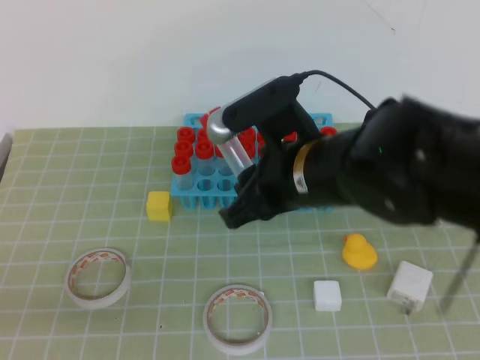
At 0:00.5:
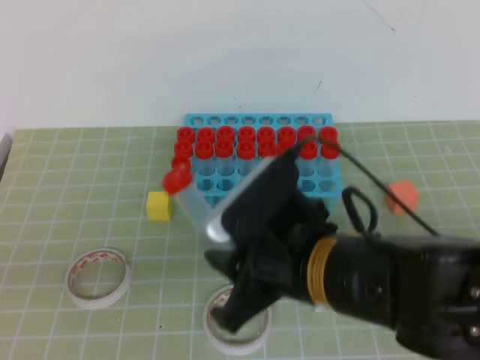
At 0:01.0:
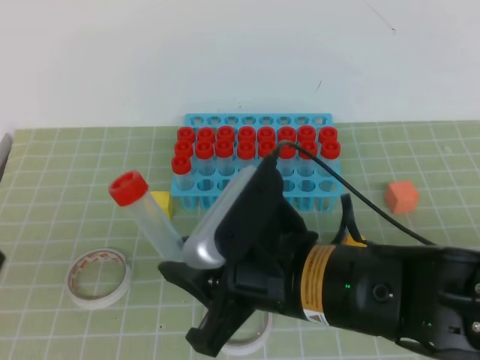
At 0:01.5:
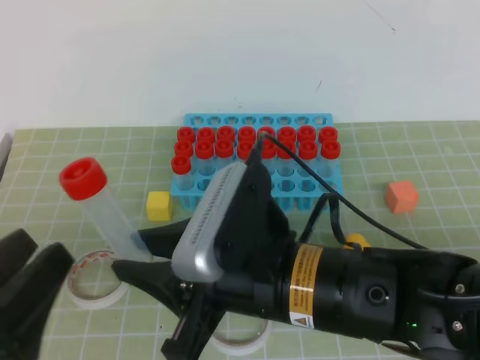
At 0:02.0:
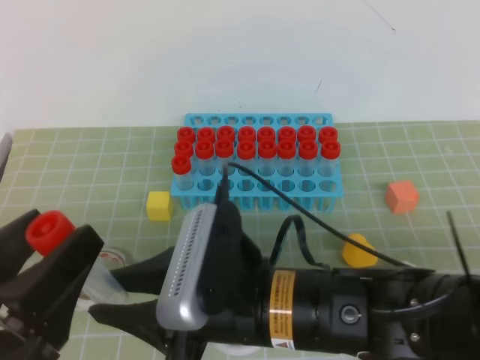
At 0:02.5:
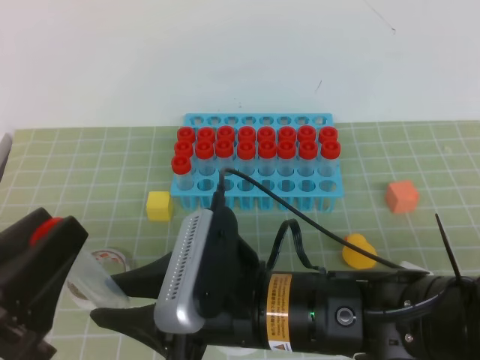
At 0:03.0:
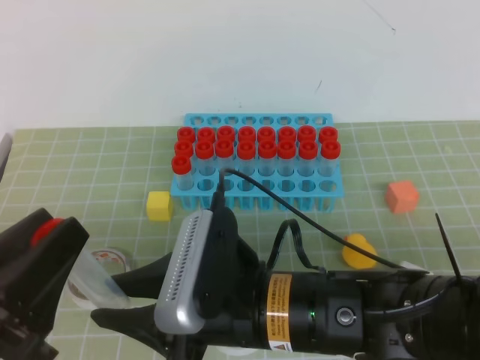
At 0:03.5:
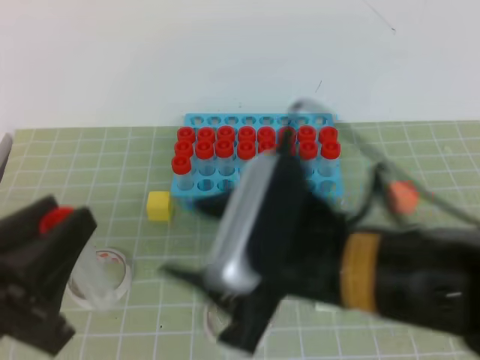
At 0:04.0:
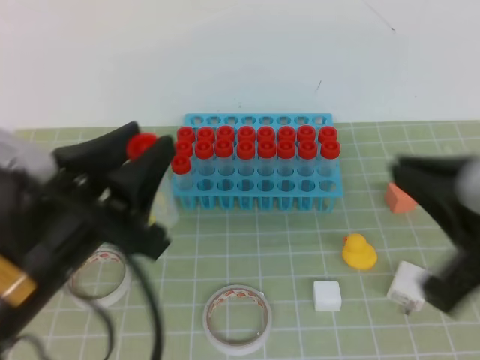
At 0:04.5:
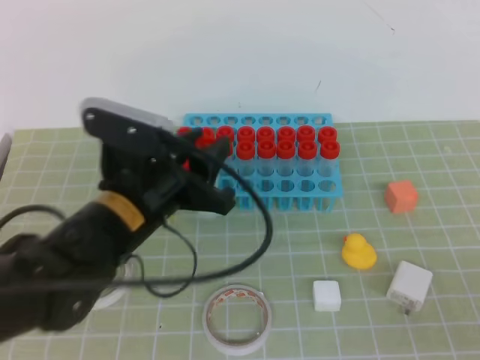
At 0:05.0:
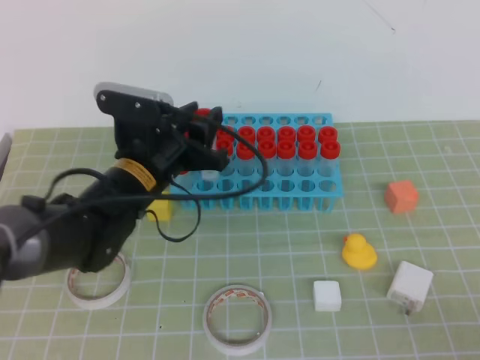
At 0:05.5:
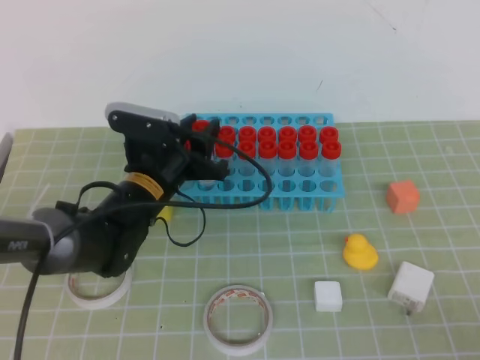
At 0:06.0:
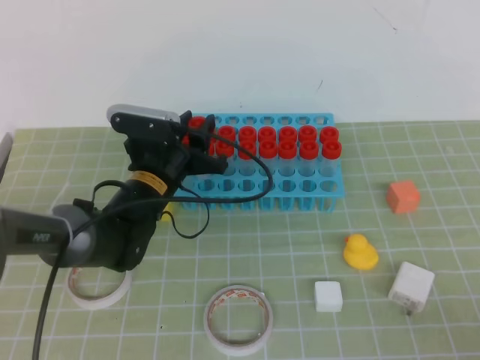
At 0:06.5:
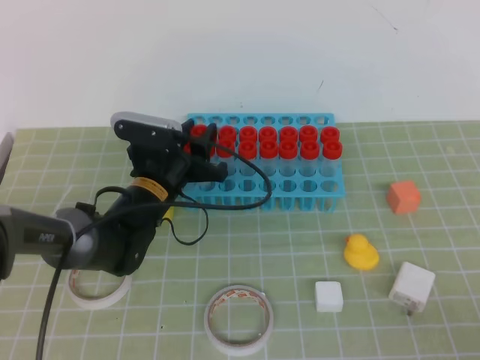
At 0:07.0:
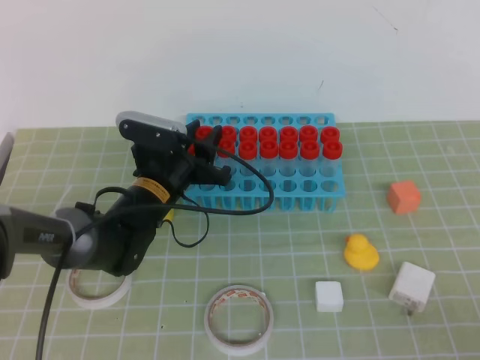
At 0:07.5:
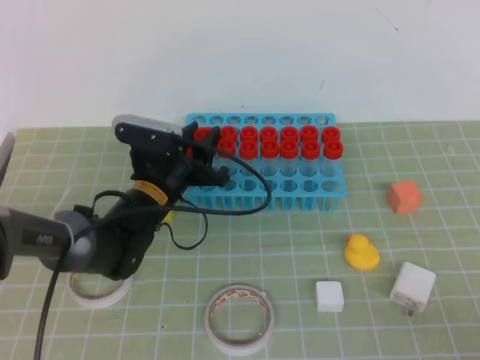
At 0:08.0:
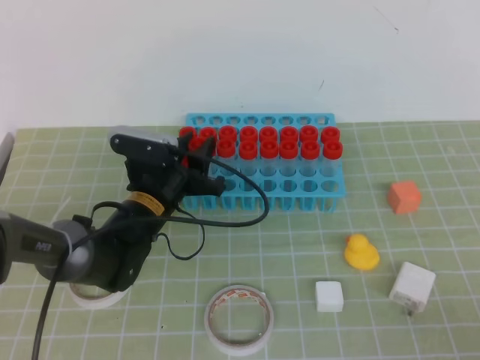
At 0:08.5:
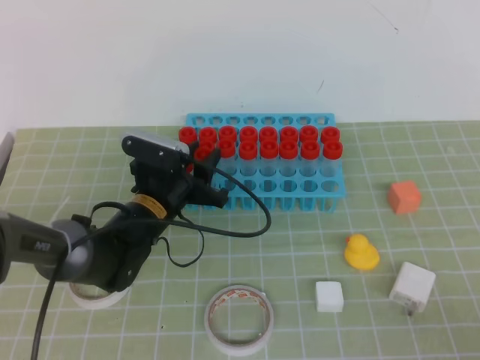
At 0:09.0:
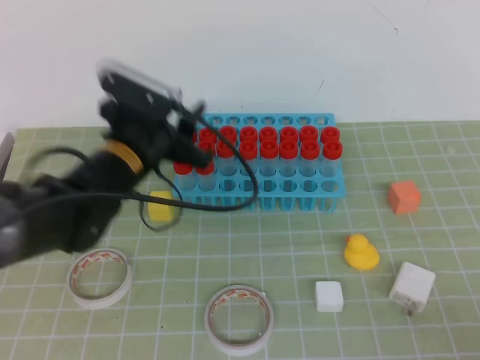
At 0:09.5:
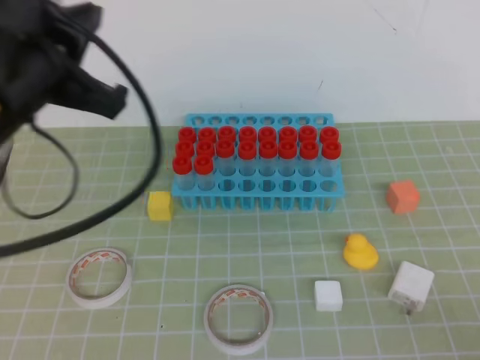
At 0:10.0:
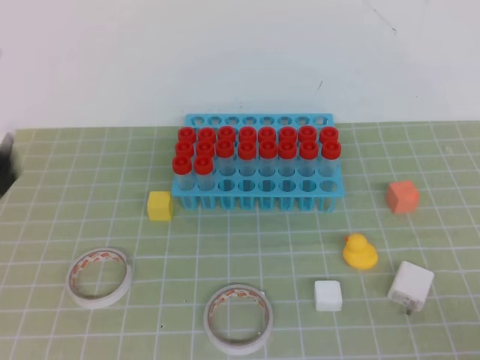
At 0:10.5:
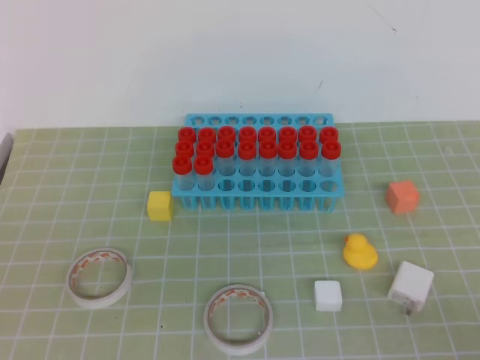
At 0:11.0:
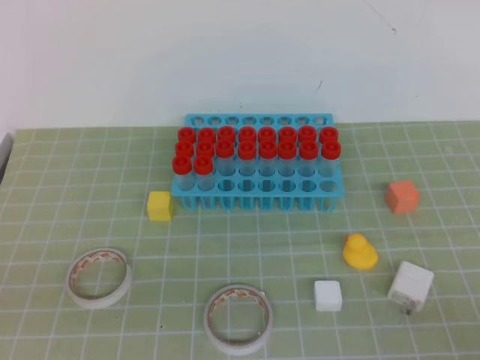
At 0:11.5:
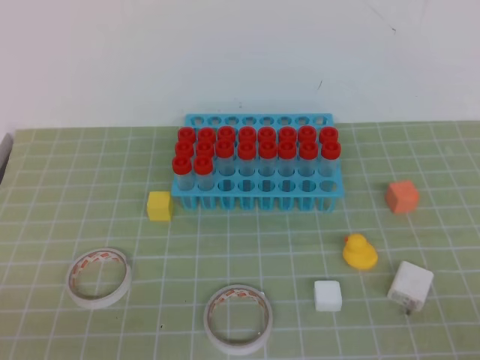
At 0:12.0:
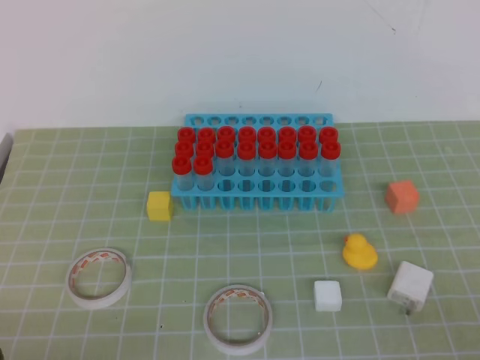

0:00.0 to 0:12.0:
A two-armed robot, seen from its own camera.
0:00.0 to 0:02.0: The right gripper heads backward, covering roughly 10 cm; the left gripper is displaced to the right by some 5 cm, and opens up.
0:02.0 to 0:04.0: The right gripper is displaced to the right and upward by about 20 cm, and closes, while the left gripper goes roughly 10 cm forward, and closes up.
0:04.0 to 0:06.0: The left gripper moves forward and downward, some 25 cm. Meanwhile the right gripper heads to the right, downward and backward, covering approximately 15 cm.
0:06.0 to 0:08.0: There are only small adjustments of the grippers.
0:08.0 to 0:10.0: The left gripper shifts about 35 cm upward and backward, and closes up.
0:10.0 to 0:12.0: The left gripper is displaced downward by approximately 25 cm.

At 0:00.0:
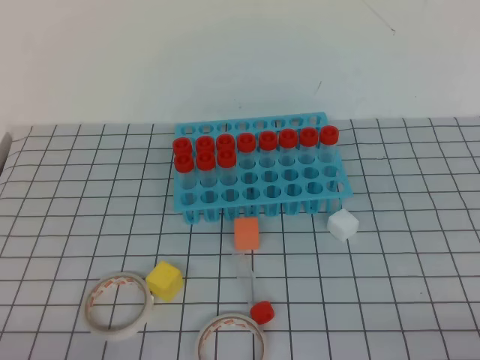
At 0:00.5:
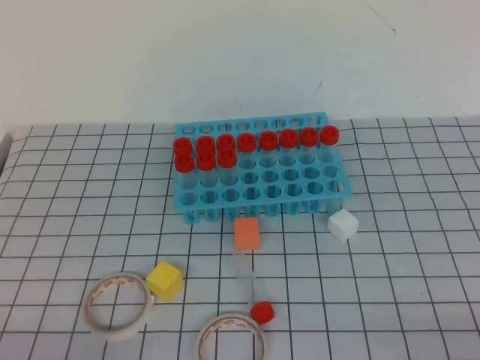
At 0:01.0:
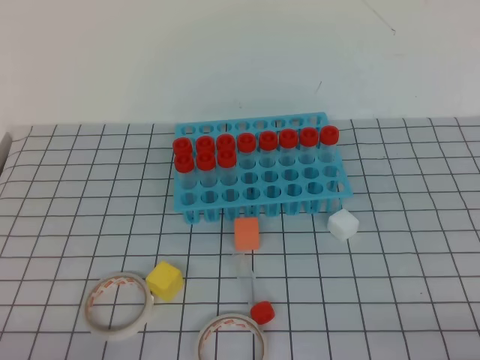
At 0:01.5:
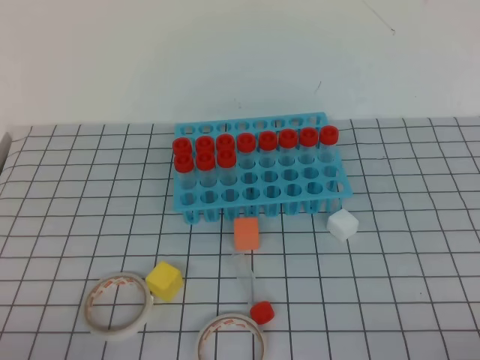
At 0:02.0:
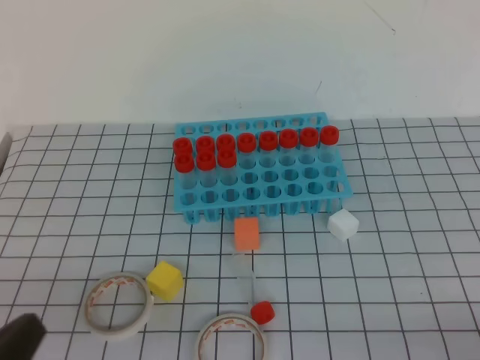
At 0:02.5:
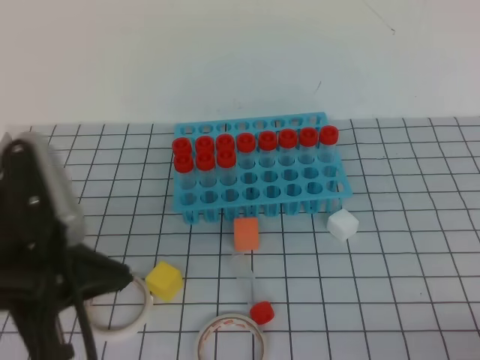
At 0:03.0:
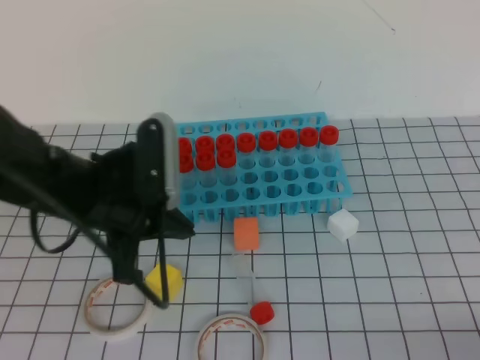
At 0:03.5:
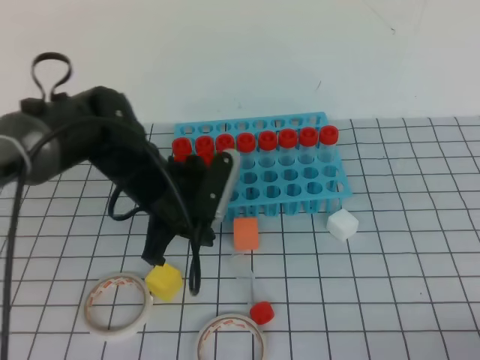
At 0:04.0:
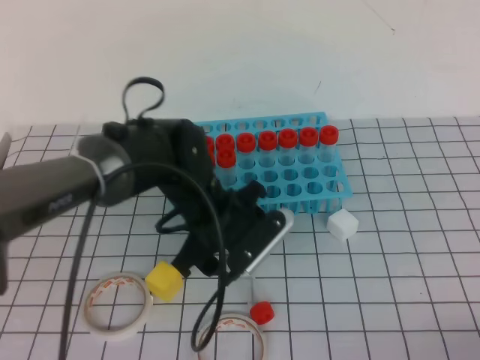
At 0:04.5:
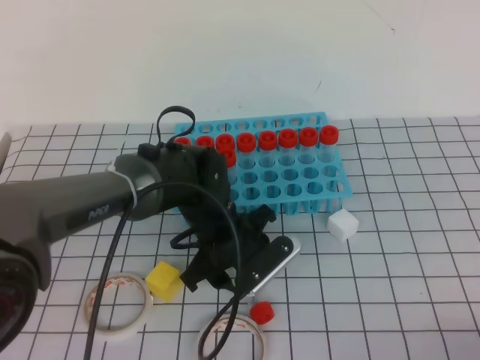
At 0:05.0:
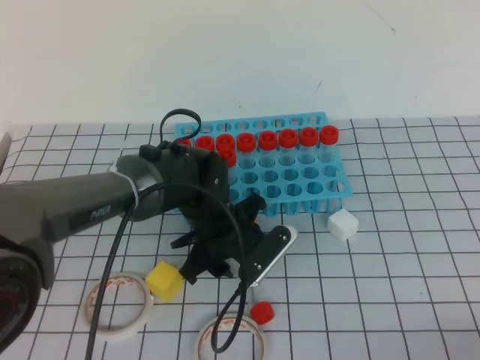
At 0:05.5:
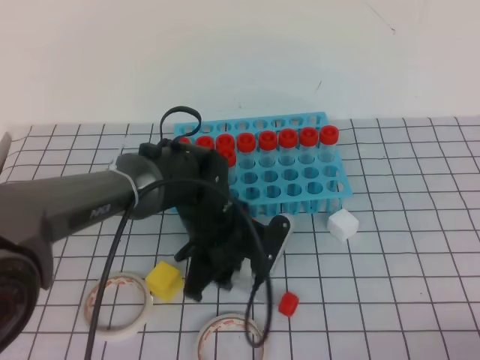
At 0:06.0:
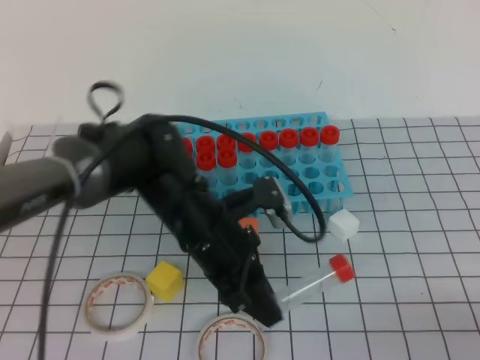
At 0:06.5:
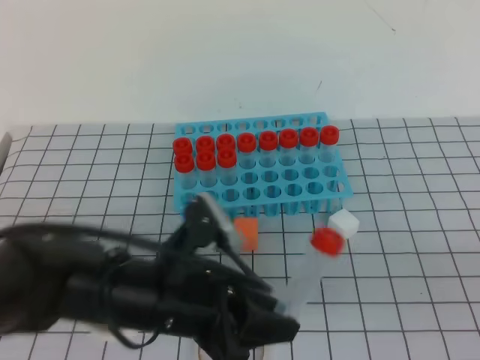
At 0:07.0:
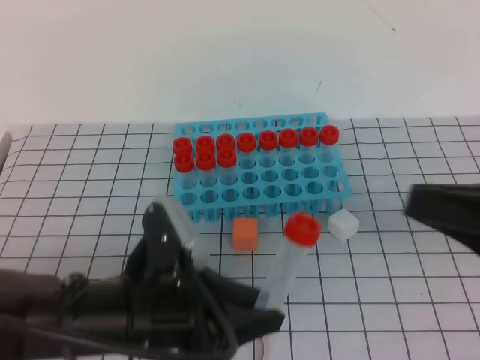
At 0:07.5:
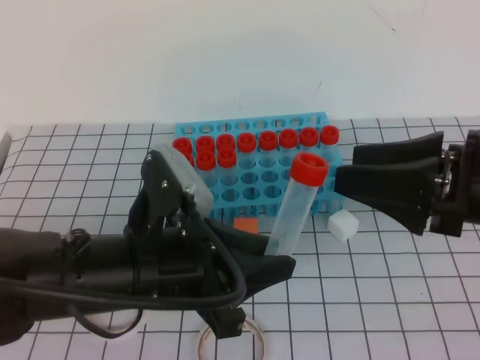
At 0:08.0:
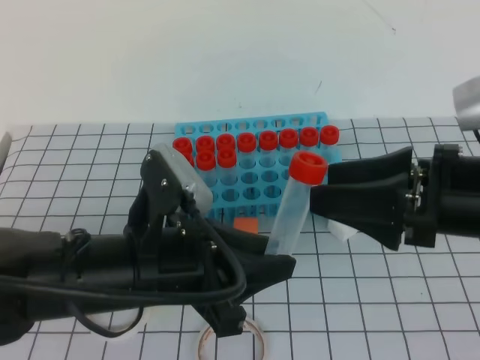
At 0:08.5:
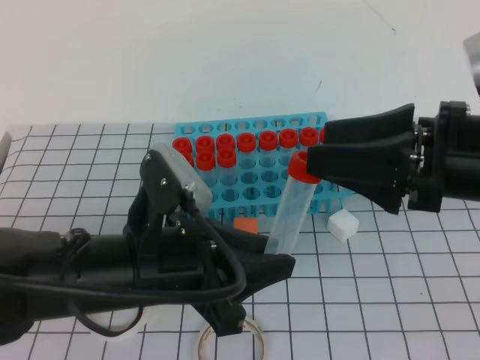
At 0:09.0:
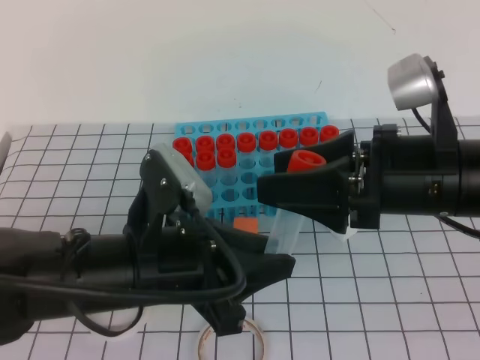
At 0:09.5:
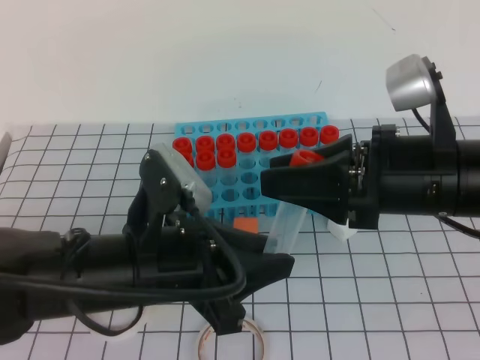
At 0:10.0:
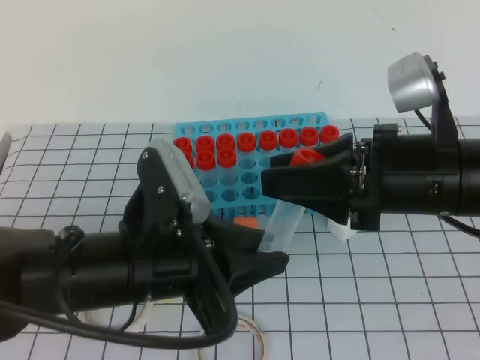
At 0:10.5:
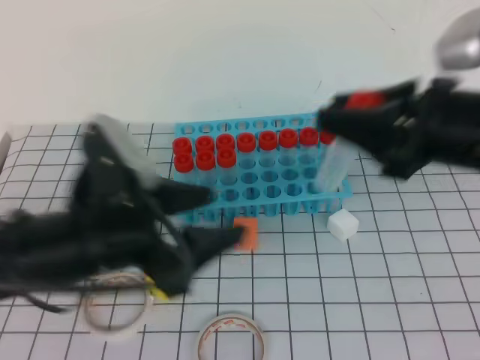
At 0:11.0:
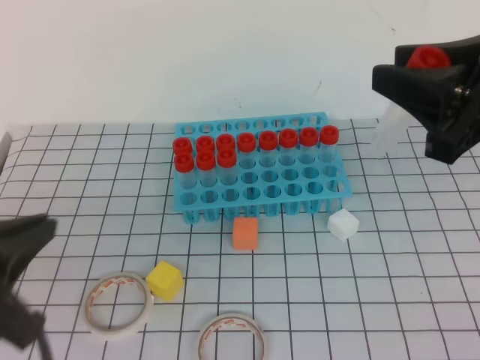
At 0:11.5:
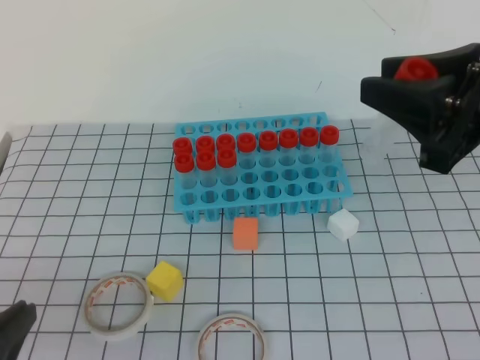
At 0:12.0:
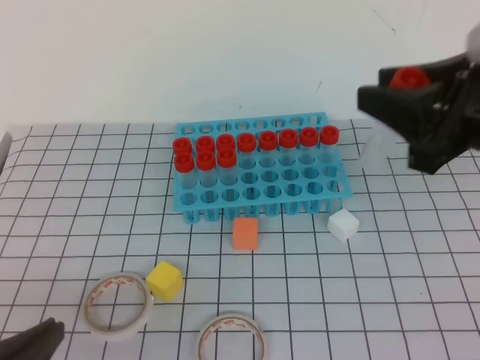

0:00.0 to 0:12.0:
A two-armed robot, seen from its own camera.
0:00.0 to 0:02.0: The left gripper shifts approximately 10 cm upward.
0:02.0 to 0:04.0: The left gripper moves forward and to the right, about 35 cm, and opens.
0:04.0 to 0:06.0: The left gripper is displaced backward by roughly 5 cm, and closes.
0:06.0 to 0:08.0: The right gripper moves forward, to the left and upward, about 25 cm, and opens. Meanwhile the left gripper heads backward and upward, covering some 10 cm.
0:08.0 to 0:10.0: The right gripper closes.
0:10.0 to 0:12.0: The right gripper goes about 5 cm to the right, while the left gripper heads backward and to the left, covering about 20 cm, and closes up.

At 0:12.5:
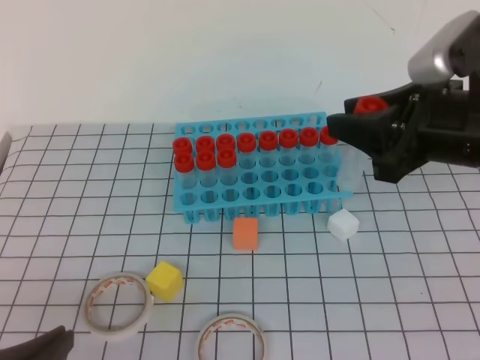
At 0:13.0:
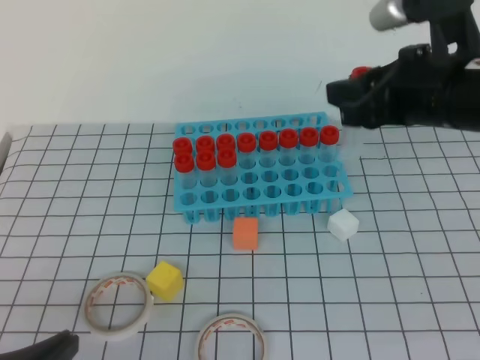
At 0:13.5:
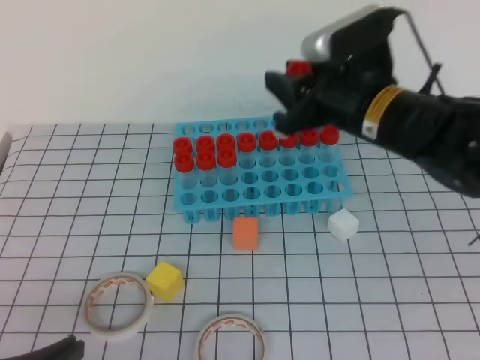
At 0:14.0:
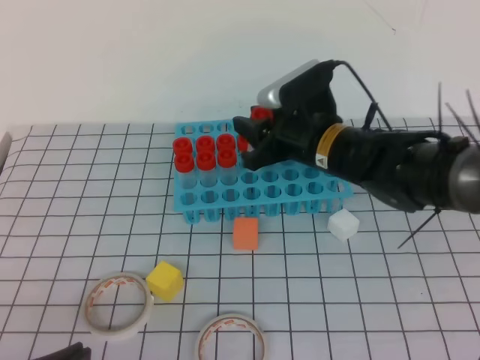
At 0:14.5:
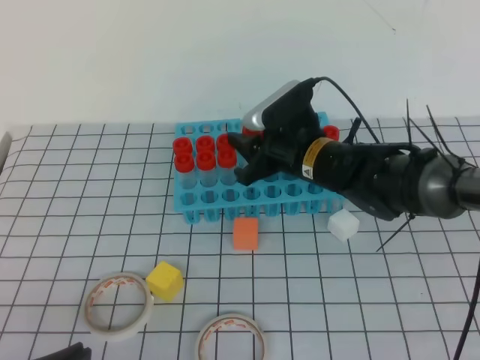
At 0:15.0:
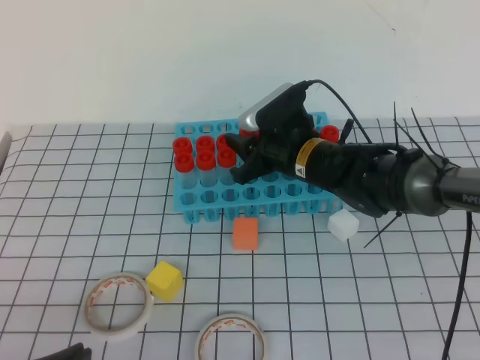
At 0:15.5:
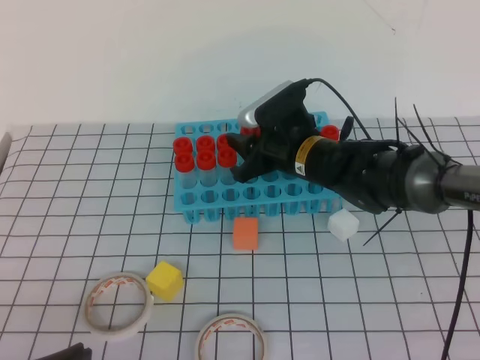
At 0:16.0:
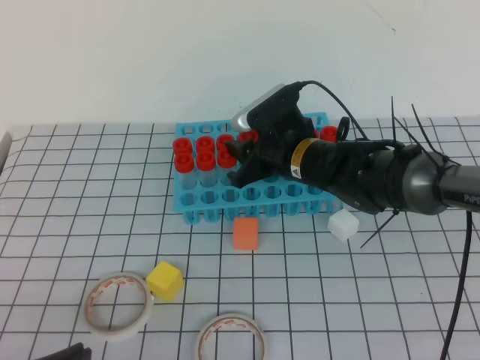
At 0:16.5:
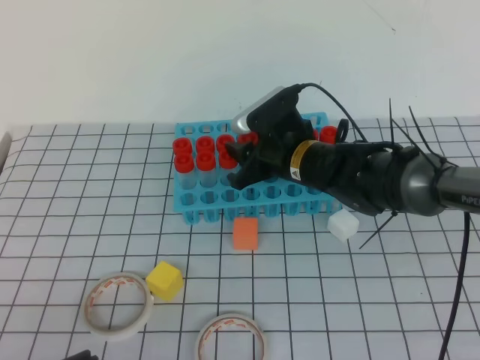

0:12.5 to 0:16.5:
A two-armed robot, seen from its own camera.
0:12.5 to 0:14.5: The right gripper moves downward, to the left and forward, about 20 cm.
0:14.5 to 0:16.5: The grippers stay close to where they were, moving slightly.
